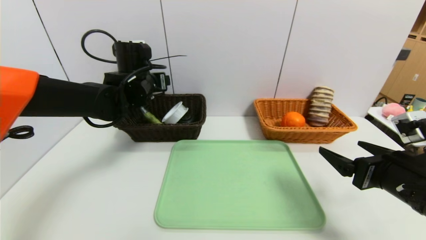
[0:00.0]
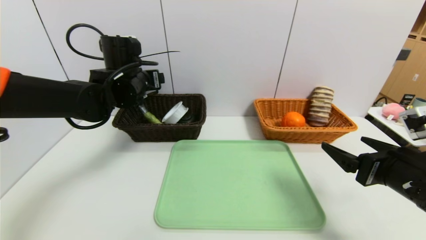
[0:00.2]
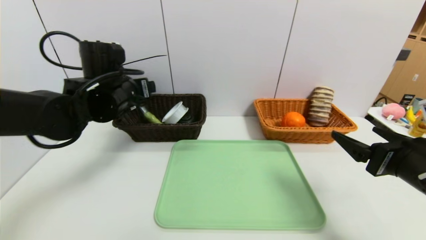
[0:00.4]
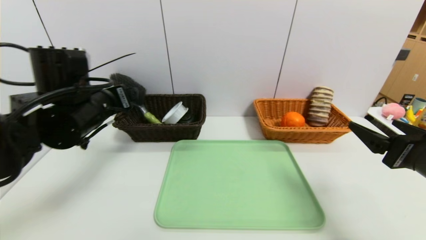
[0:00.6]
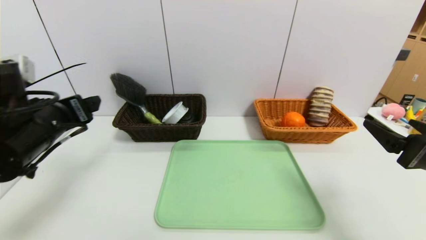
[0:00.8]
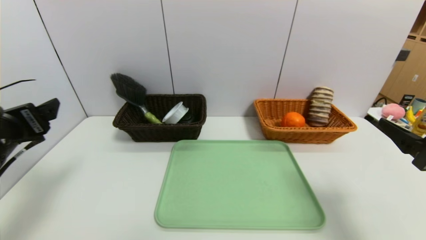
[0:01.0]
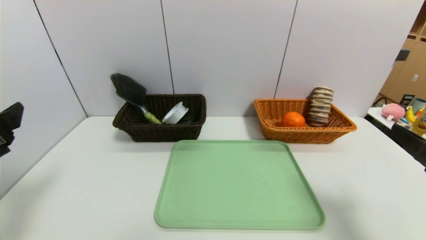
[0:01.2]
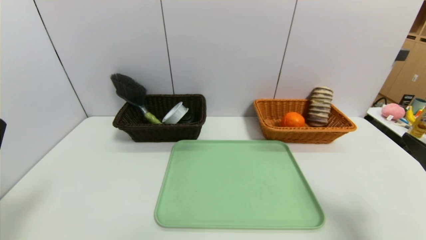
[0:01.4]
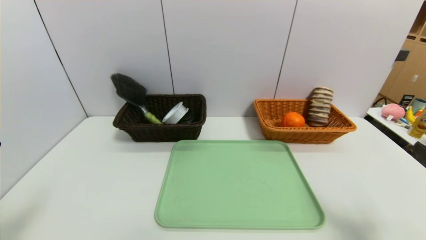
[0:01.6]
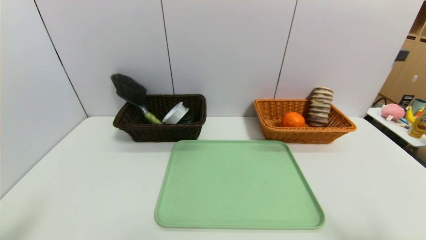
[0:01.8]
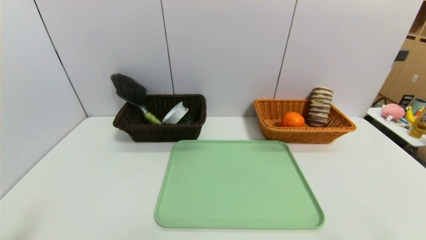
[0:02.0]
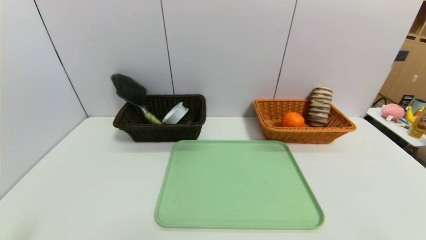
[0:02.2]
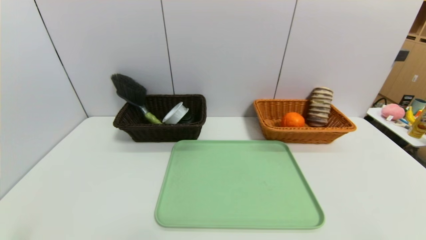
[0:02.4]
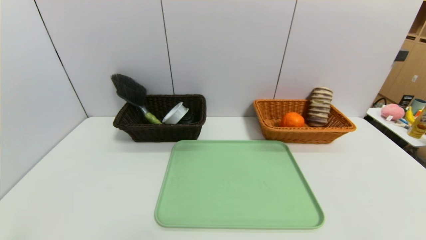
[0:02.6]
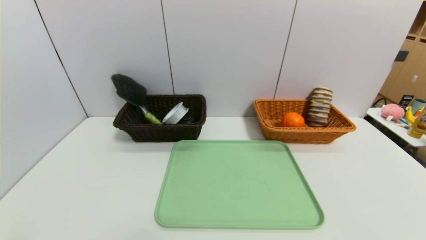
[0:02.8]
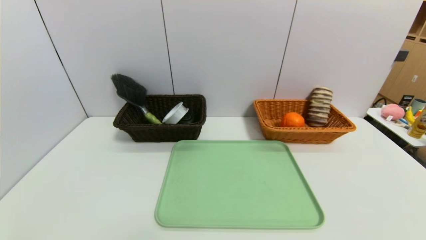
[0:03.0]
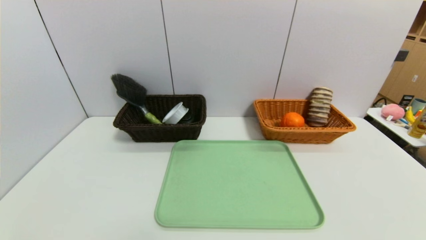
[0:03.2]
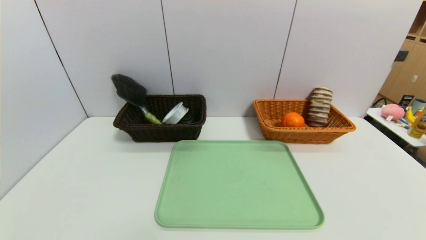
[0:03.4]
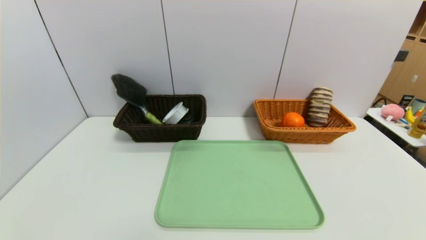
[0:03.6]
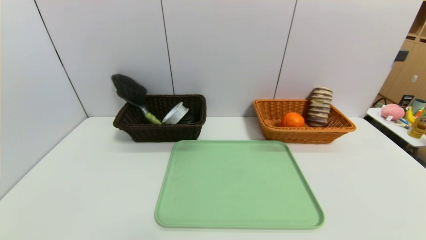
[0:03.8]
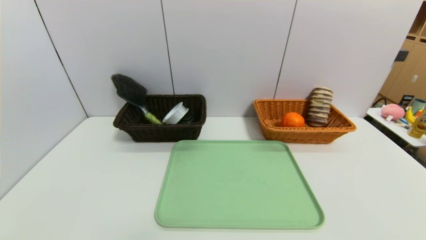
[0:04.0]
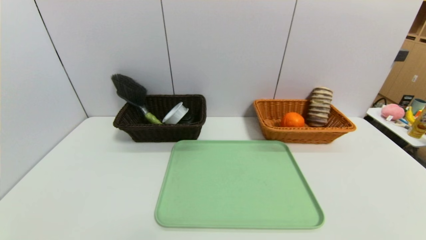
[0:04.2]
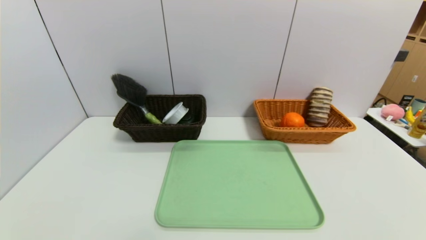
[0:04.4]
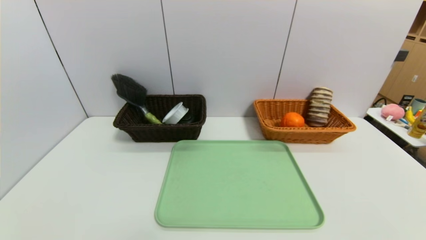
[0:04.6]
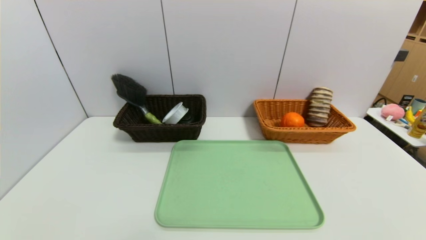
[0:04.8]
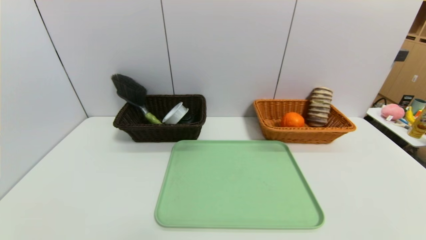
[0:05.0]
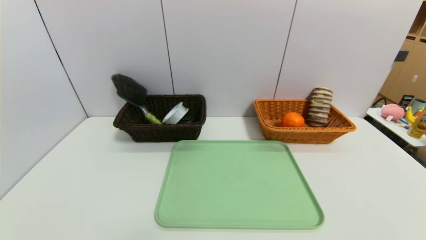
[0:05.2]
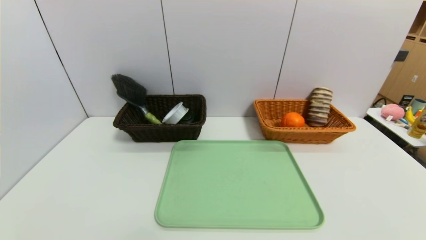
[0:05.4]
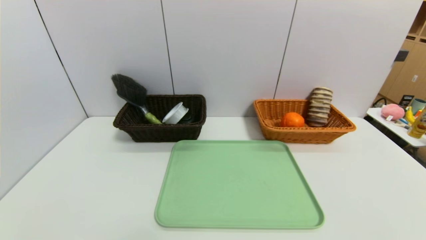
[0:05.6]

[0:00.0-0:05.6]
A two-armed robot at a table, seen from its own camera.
Task of the whole recording: place the food in the right basket with the right gripper, and place the non food items in the left basket with the left gripper.
0:00.0 to 0:01.4: The right gripper travels backward and to the right by some 10 cm; the left gripper is displaced backward and to the left by about 35 cm.
0:01.4 to 0:02.8: The right gripper is displaced backward by about 15 cm; the left gripper travels backward and downward by roughly 15 cm.
